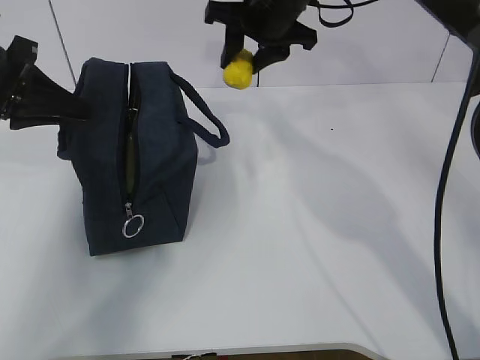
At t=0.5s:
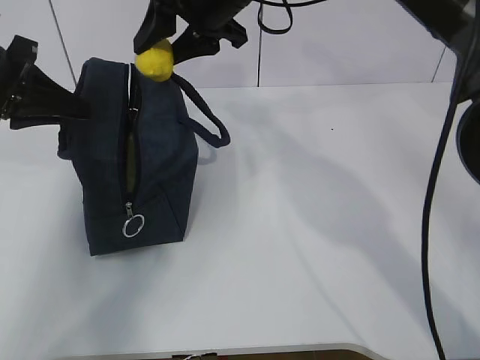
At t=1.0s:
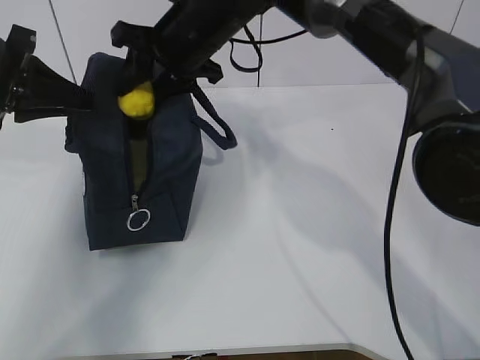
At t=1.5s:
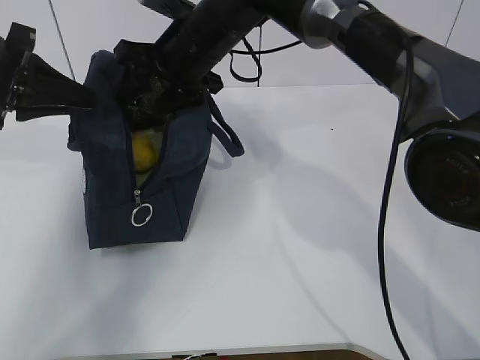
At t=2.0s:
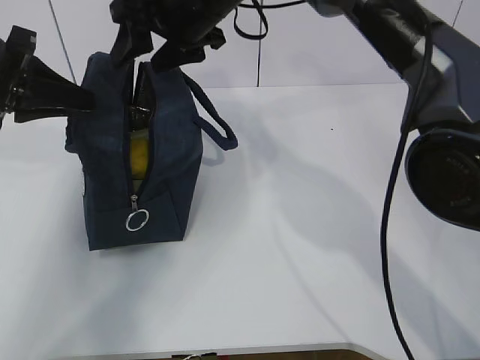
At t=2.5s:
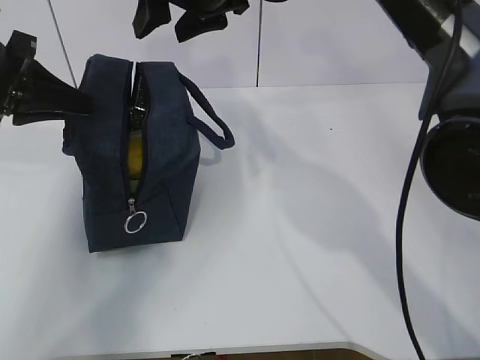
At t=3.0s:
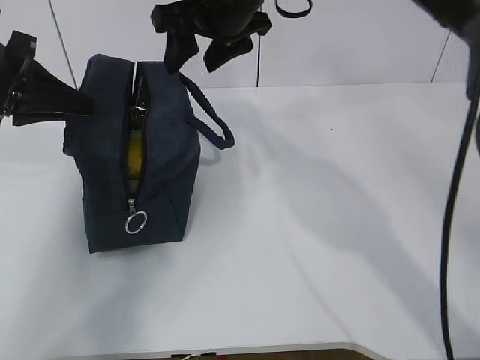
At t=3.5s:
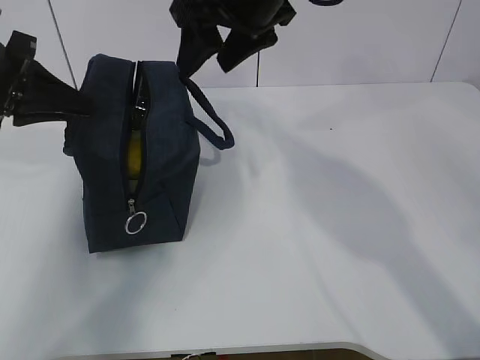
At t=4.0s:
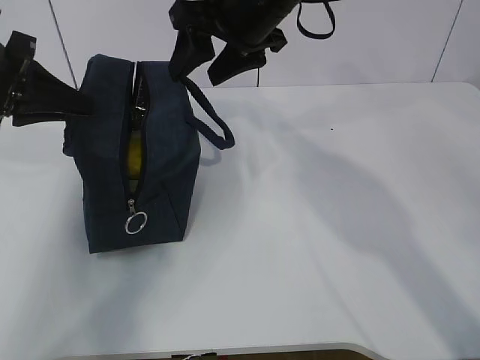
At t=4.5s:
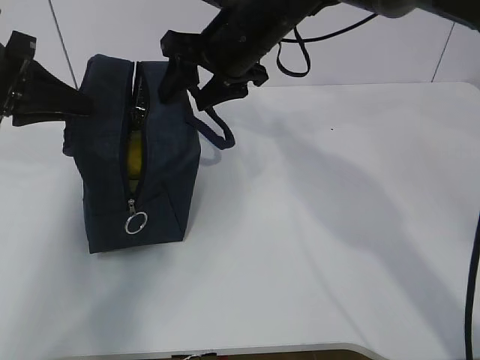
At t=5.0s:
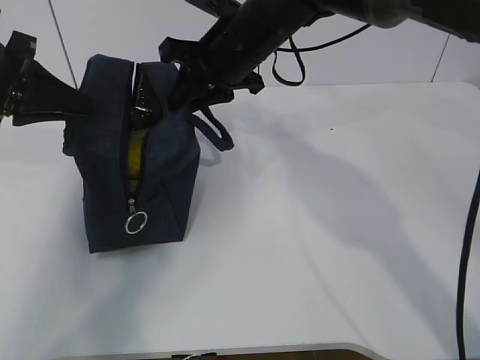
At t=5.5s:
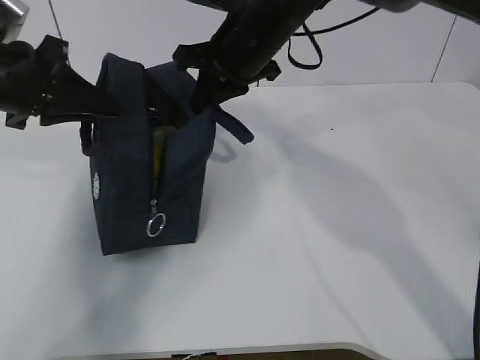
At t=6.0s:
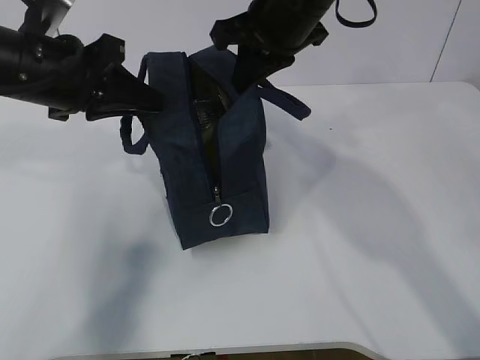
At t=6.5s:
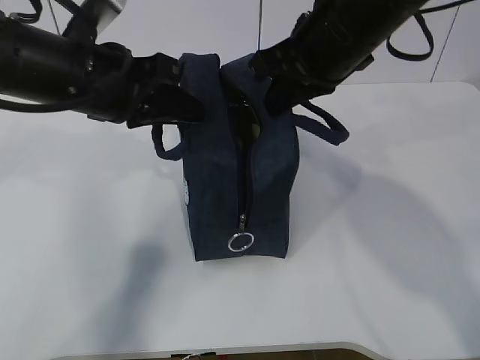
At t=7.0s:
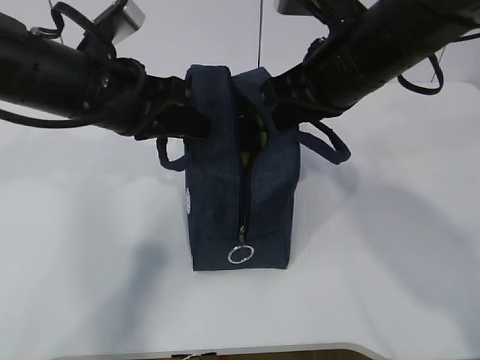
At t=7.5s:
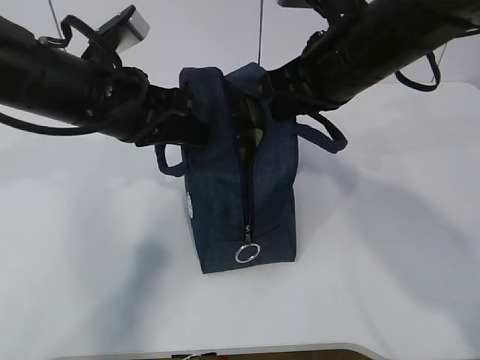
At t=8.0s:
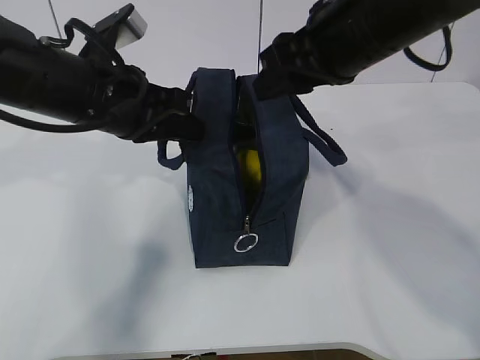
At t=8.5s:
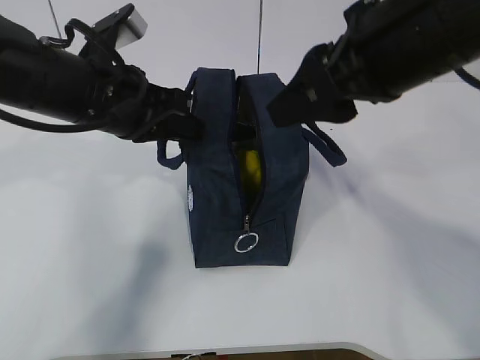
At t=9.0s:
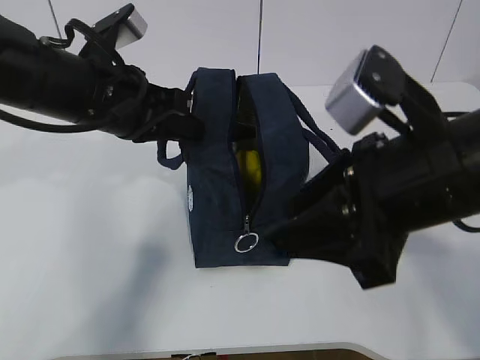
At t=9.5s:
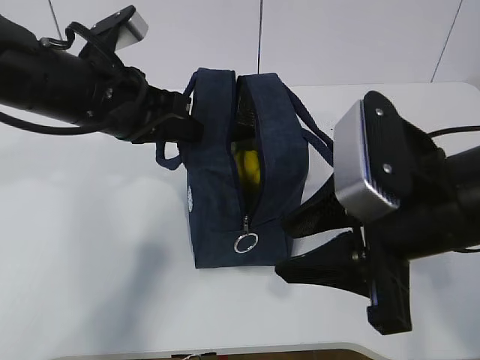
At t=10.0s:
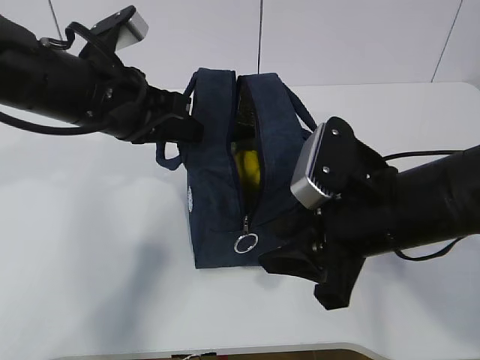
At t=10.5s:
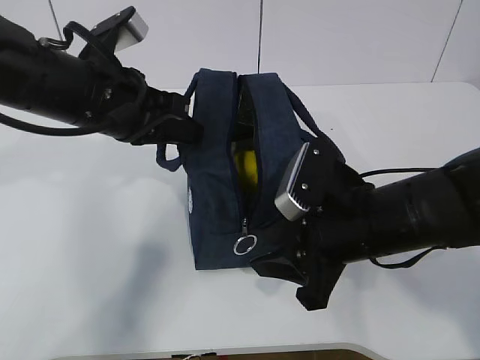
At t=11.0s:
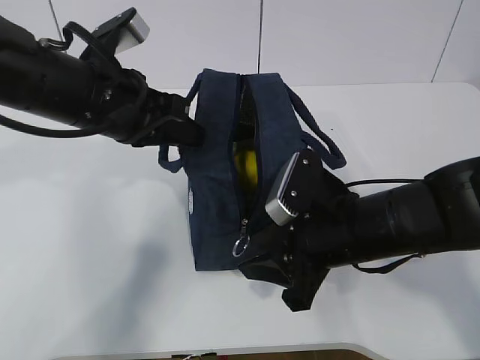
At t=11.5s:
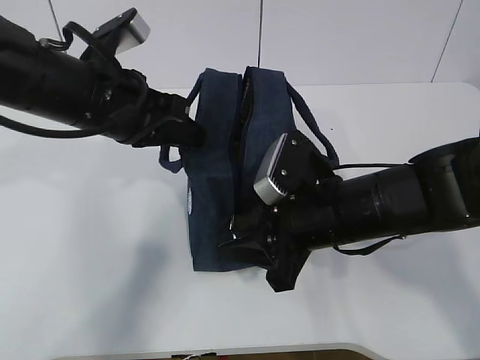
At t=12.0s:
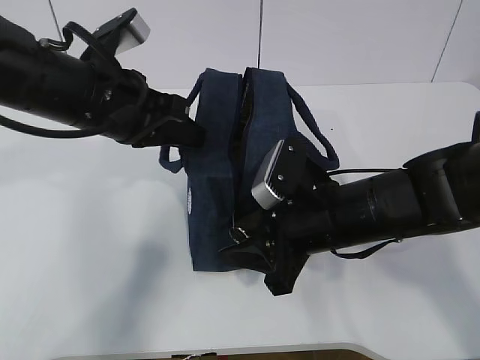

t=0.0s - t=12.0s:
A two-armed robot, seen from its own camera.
Step, t=0.0s - t=1.5s: Move the lunch bag to the right.
t=0.0s - t=2.0s: The right gripper travels to the left by approximately 10 cm.
t=2.0s - t=4.0s: The right gripper is displaced to the right by roughly 5 cm.
t=4.0s - t=6.0s: The left gripper heads to the right, covering roughly 10 cm. Meanwhile the right gripper closes its fingers.
t=6.0s - t=8.0s: The left gripper heads to the right, covering roughly 5 cm. Meanwhile the right gripper shifts roughly 10 cm backward, and opens.
t=8.0s - t=10.0s: The right gripper goes approximately 15 cm downward and backward.
t=10.0s - t=12.0s: The right gripper is displaced downward by roughly 5 cm.

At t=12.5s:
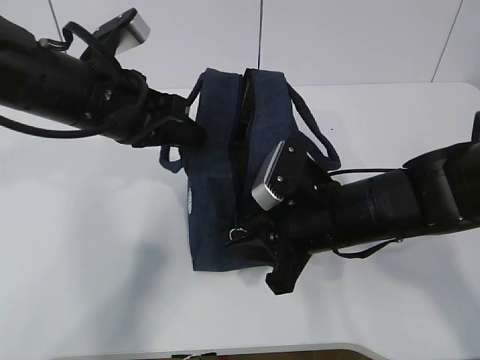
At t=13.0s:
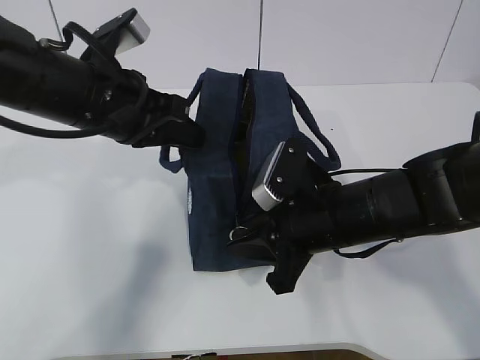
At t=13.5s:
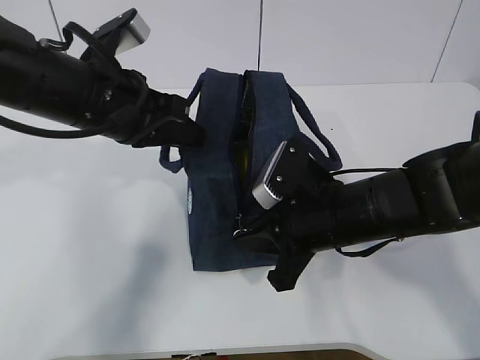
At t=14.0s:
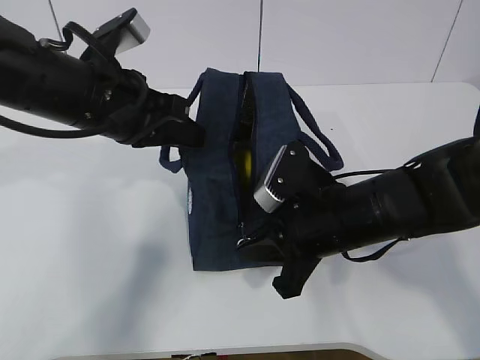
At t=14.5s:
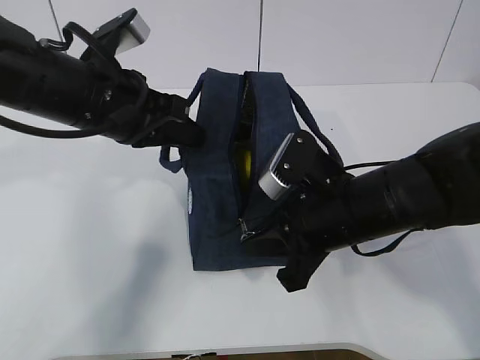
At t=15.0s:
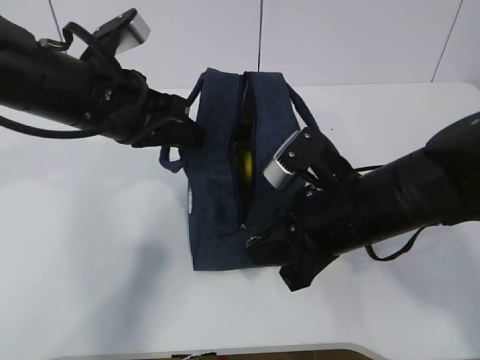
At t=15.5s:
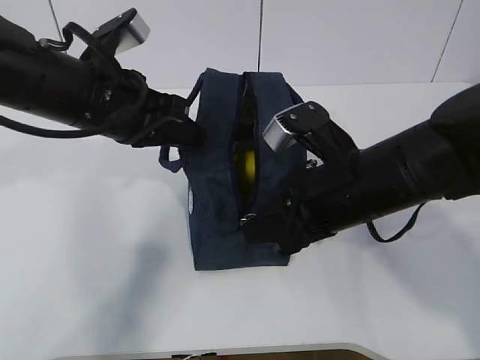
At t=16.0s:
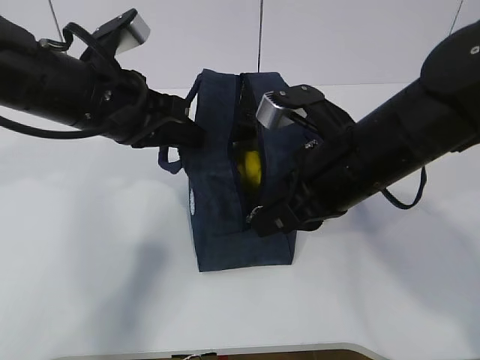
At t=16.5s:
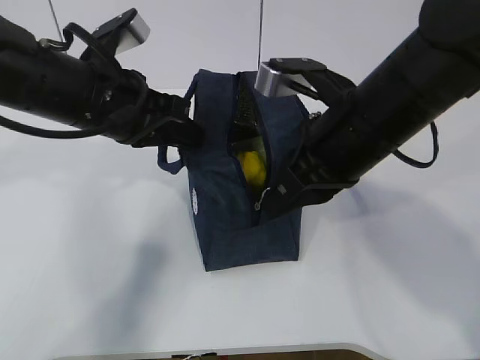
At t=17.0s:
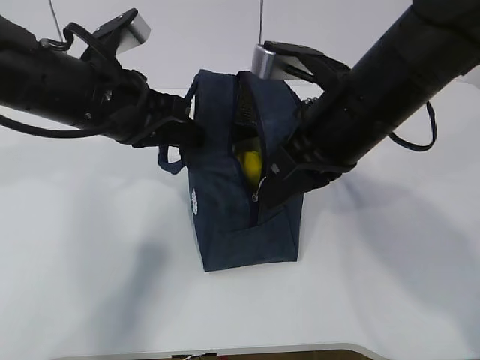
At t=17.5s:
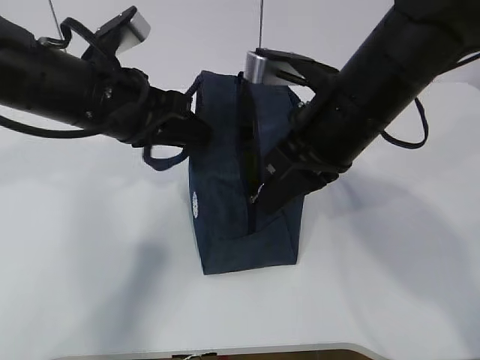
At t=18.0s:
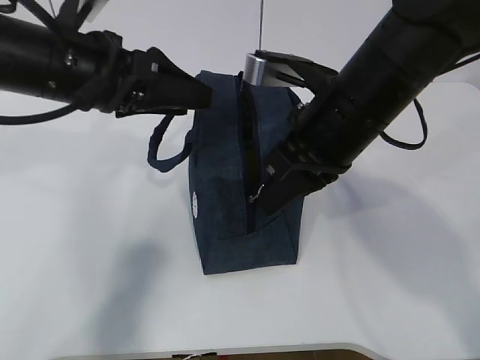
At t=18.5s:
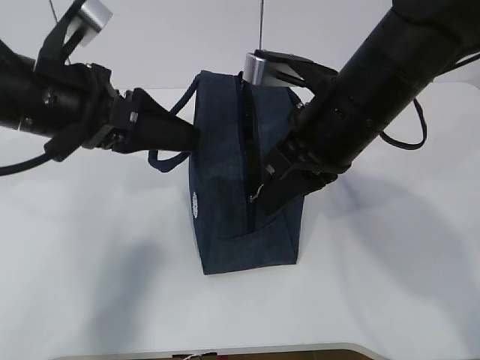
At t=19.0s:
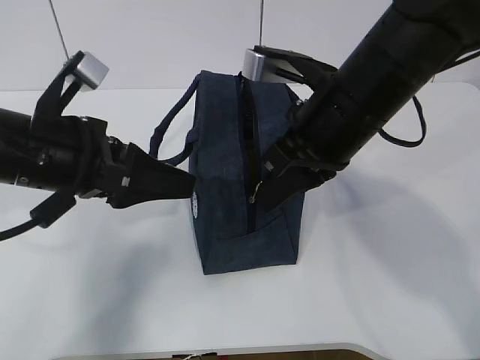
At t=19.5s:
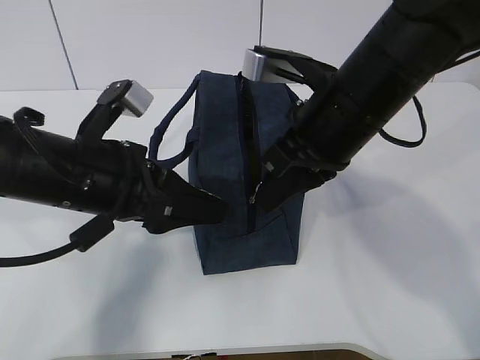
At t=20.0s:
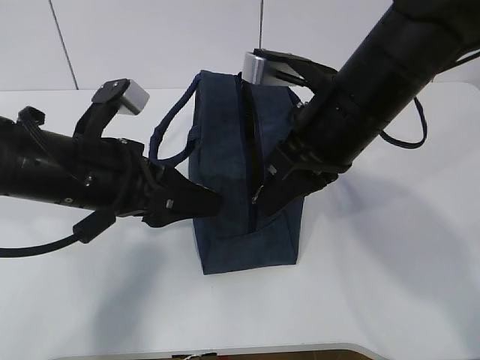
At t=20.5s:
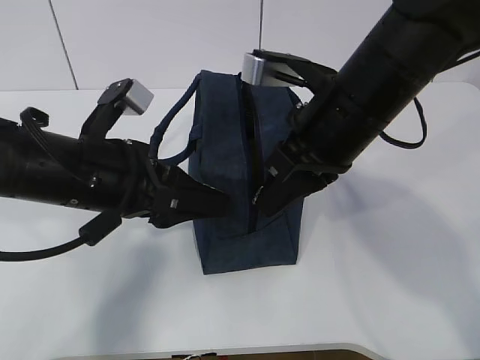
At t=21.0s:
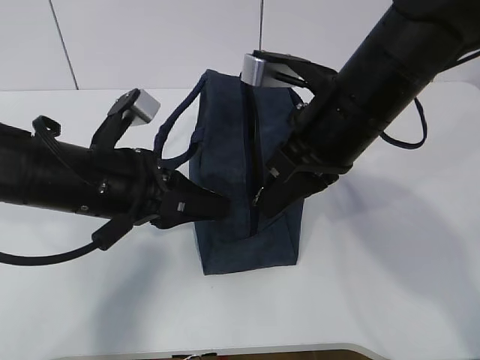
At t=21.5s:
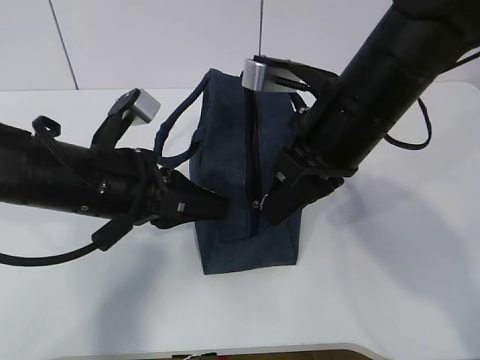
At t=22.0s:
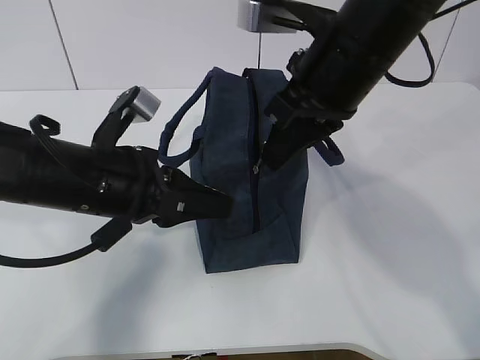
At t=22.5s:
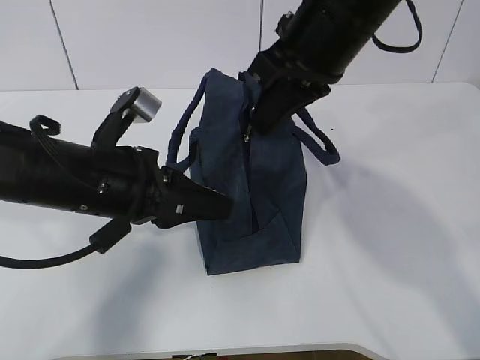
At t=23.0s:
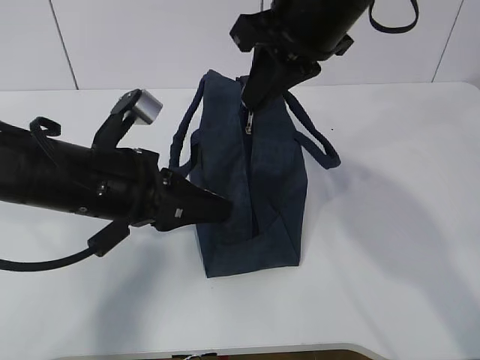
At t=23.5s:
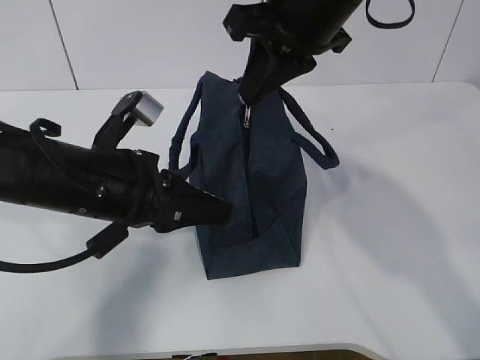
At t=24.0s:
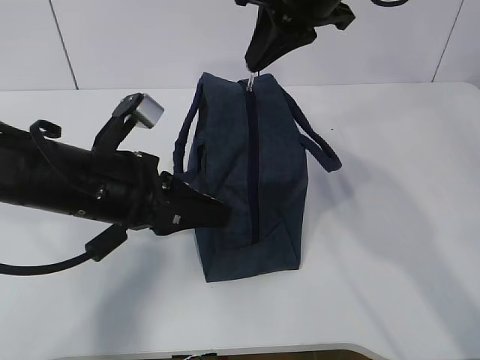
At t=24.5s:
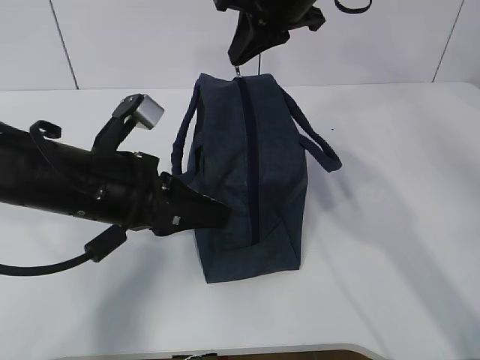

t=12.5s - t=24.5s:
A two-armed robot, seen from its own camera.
Step, t=12.5s - t=22.5s: Grab the lunch bag with your left hand.
t=12.5s - t=14.5s: The right gripper closes.
t=14.5s - t=16.5s: The right gripper travels upward by roughly 10 cm.
t=16.5s - t=18.5s: The left gripper opens its fingers.
t=18.5s - t=20.5s: The left gripper goes approximately 5 cm downward.
t=20.5s - t=22.5s: The right gripper shifts approximately 5 cm upward, while the left gripper closes.
t=22.5s - t=24.5s: The right gripper shifts some 10 cm forward.

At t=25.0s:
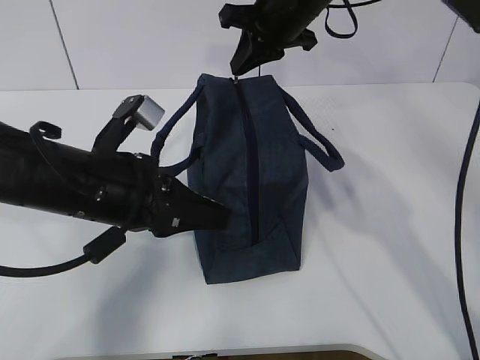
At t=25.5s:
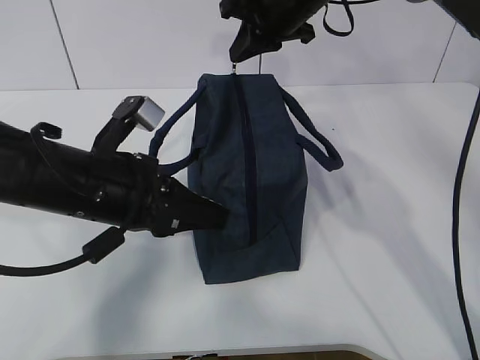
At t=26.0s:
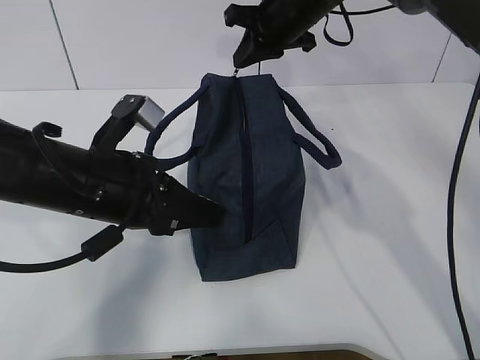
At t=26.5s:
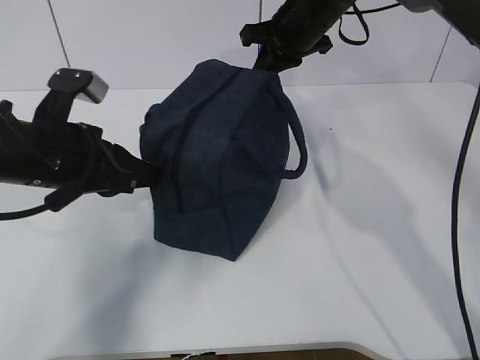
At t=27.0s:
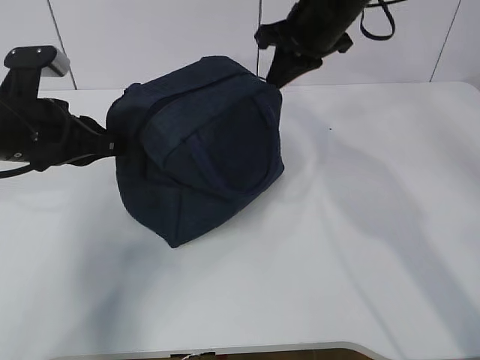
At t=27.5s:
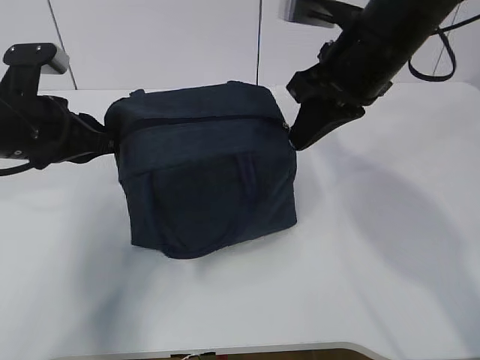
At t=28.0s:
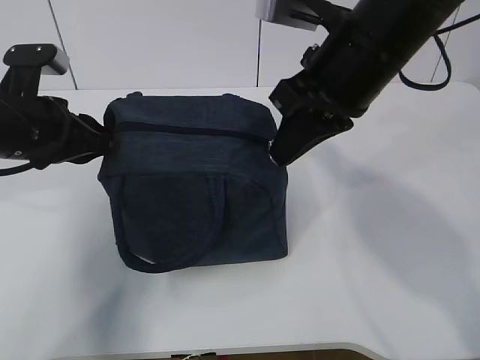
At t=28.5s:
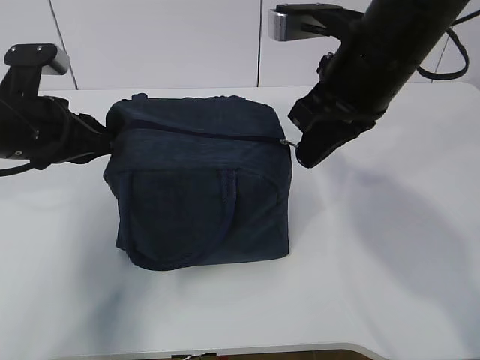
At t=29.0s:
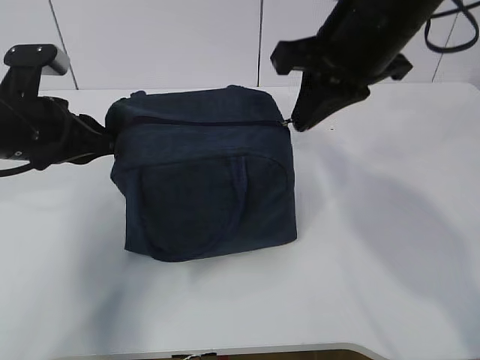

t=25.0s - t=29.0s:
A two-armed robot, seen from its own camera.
Step, t=25.0s - t=27.5s: Pull the zipper with your right hand.
t=25.0s - t=27.0s: The left gripper shifts approximately 10 cm to the left and forward.
t=27.0s - t=29.0s: The right gripper goes some 15 cm backward.
